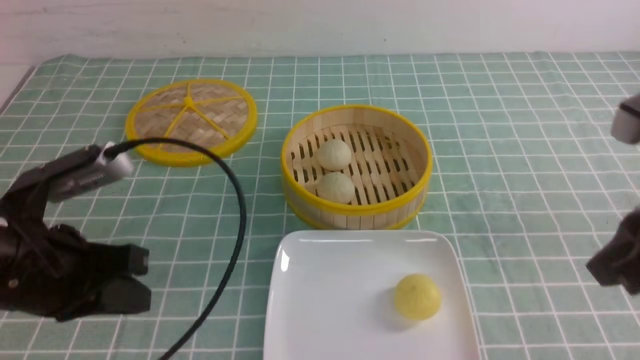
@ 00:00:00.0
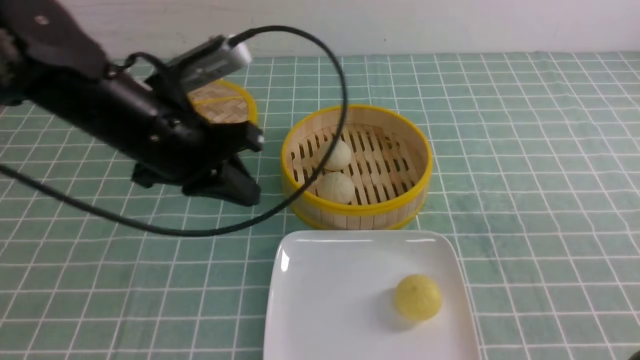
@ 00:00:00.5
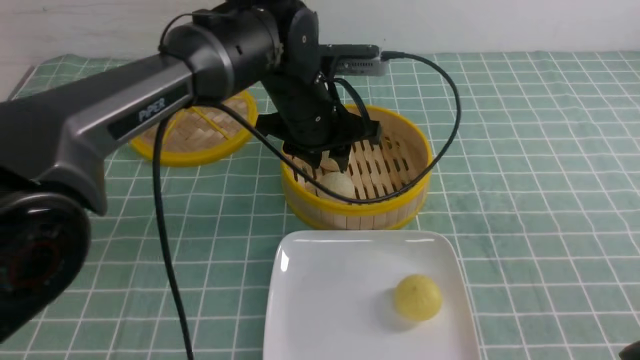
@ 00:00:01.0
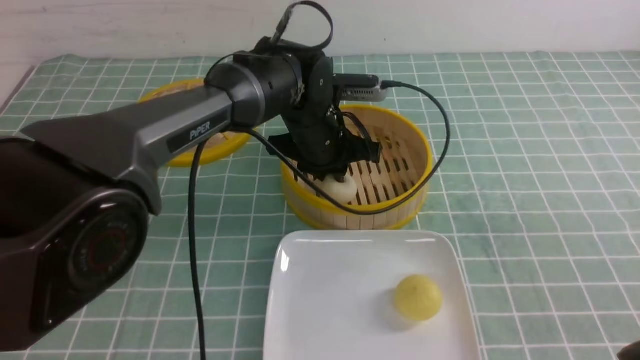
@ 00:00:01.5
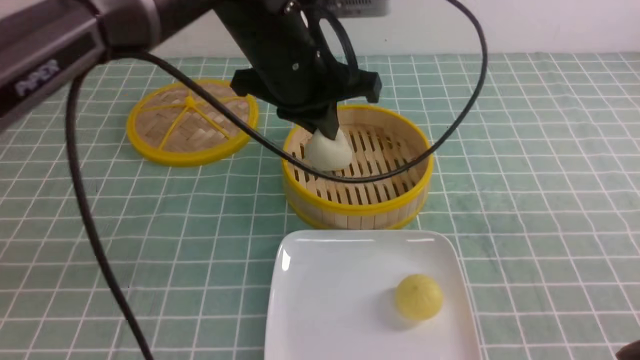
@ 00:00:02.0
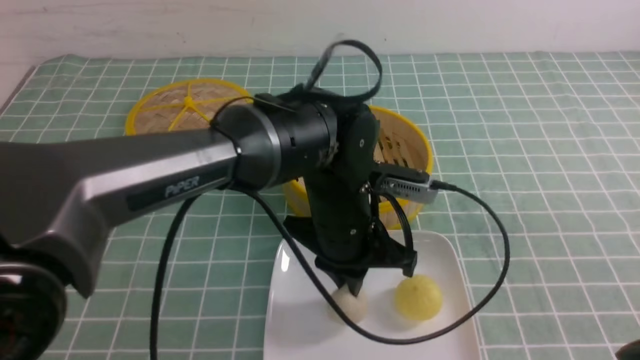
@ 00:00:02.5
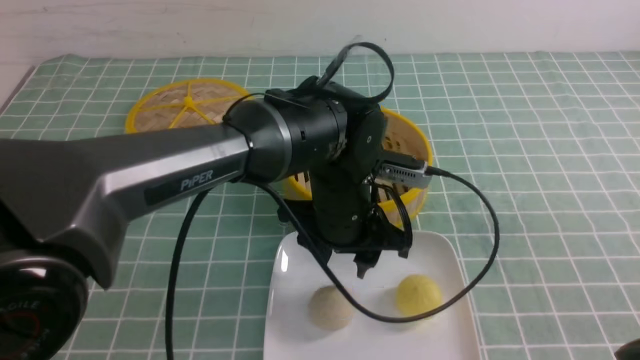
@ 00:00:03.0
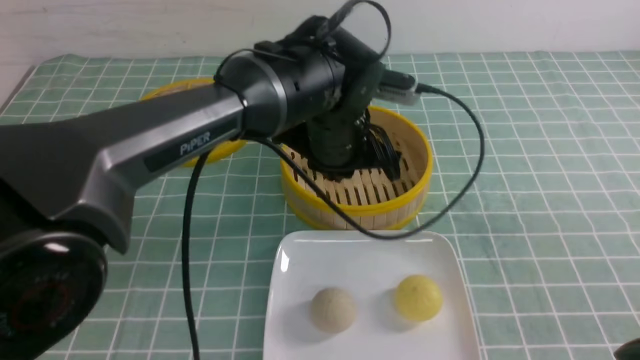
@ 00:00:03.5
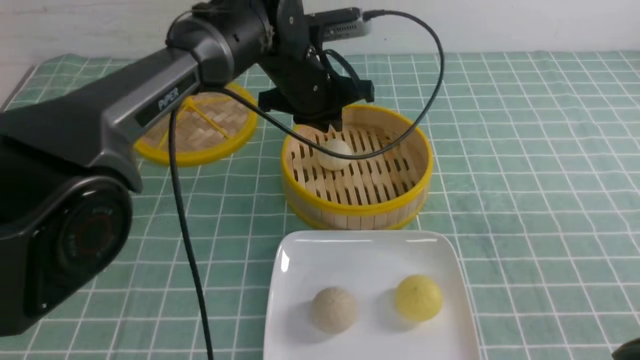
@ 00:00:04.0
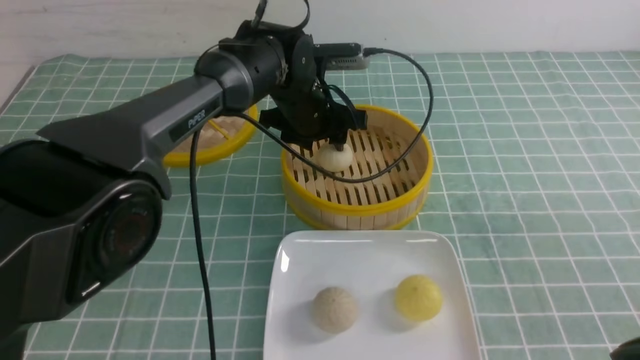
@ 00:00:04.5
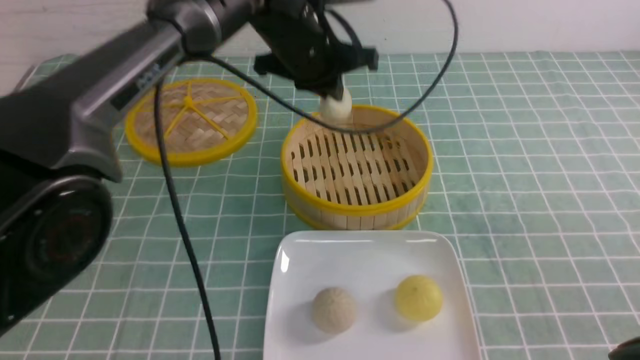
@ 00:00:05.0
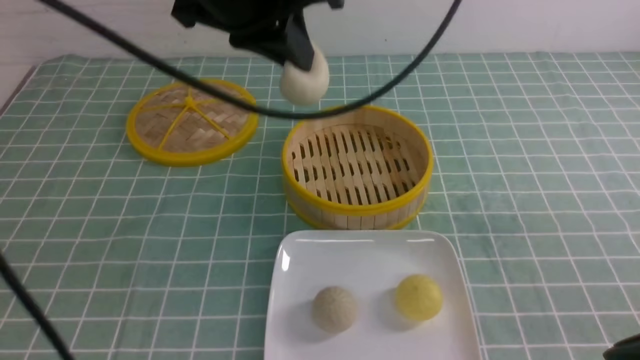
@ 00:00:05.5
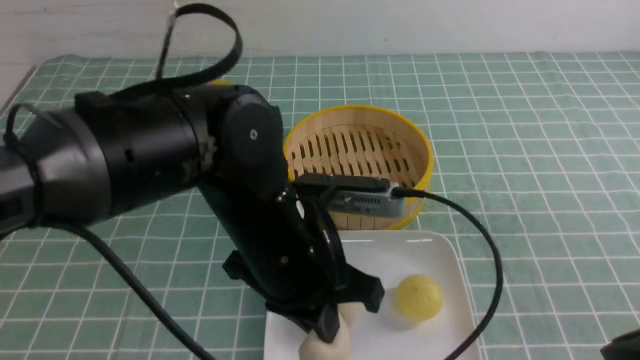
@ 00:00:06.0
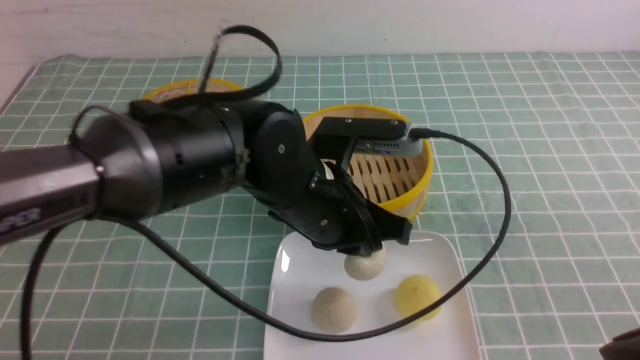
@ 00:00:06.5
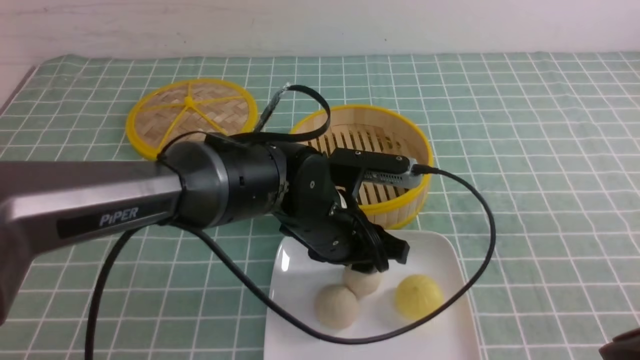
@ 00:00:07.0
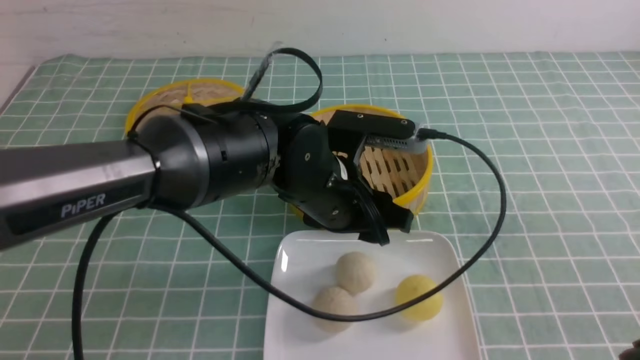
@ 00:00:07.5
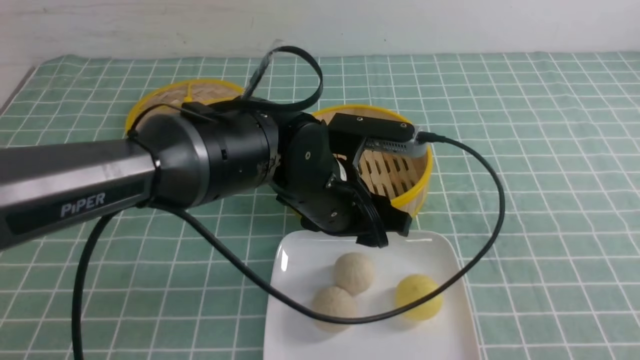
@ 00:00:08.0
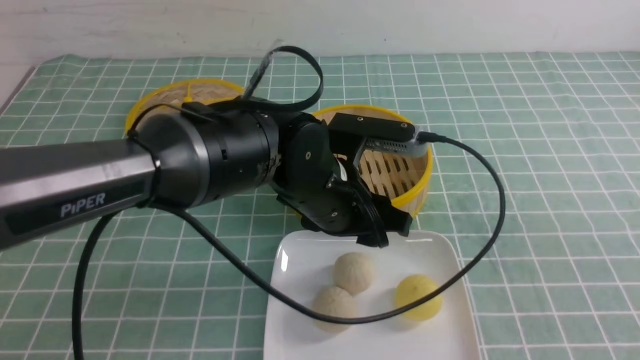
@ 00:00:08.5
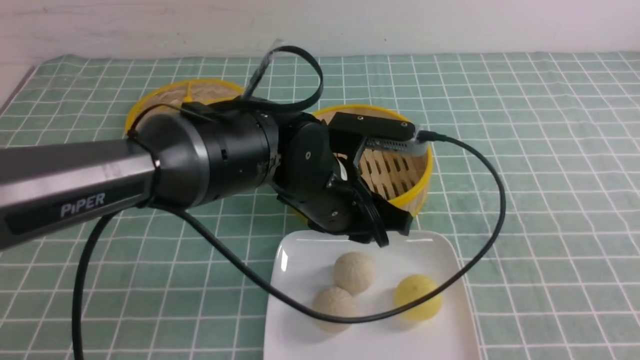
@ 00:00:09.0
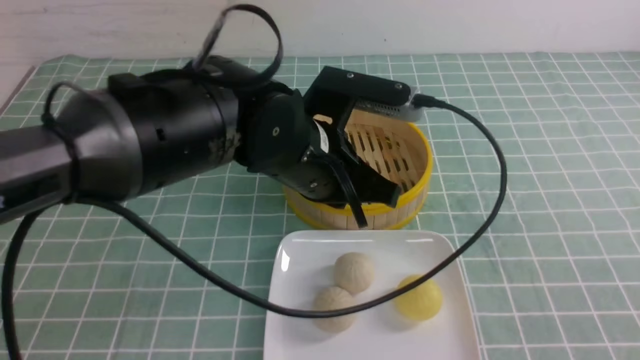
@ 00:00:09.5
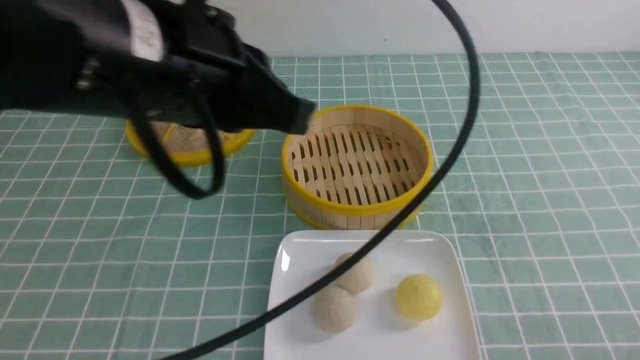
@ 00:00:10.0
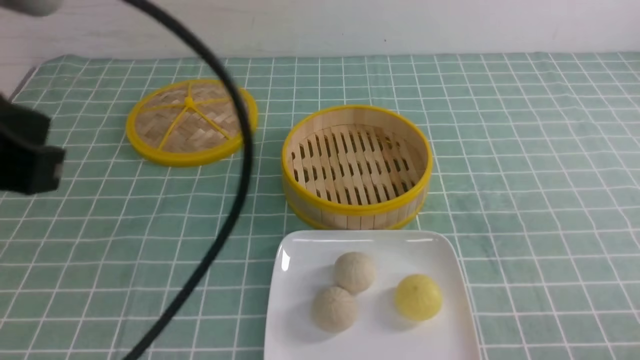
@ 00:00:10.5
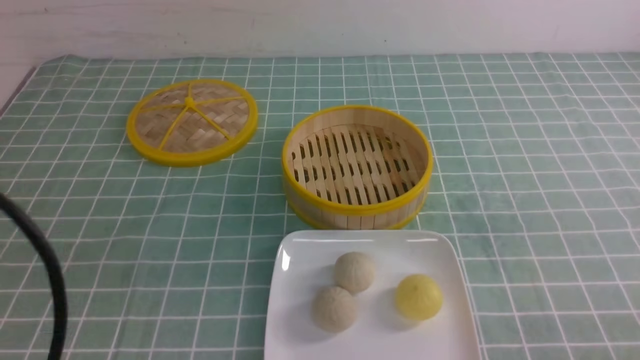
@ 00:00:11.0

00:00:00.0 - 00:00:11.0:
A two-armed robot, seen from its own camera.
Step, 00:00:00.0 - 00:00:01.5: use the left arm to grab the steamed stuffed bun that is closest to it.
Step, 00:00:02.0 - 00:00:02.5: use the left arm to put the steamed stuffed bun into the plate.
Step, 00:00:03.0 - 00:00:04.5: use the left arm to grab the steamed stuffed bun that is closest to it.
Step, 00:00:05.0 - 00:00:07.0: use the left arm to put the steamed stuffed bun into the plate.
00:00:00.0 - 00:00:02.0: The right gripper heads downward and backward, covering some 10 cm. The left gripper heads to the right and forward, covering about 25 cm, and opens, then closes once more.
00:00:02.0 - 00:00:03.5: The left gripper shifts about 5 cm downward, and opens, then closes once more.
00:00:03.5 - 00:00:05.5: The left gripper moves upward and to the left, approximately 15 cm, and opens, then closes again.
00:00:05.5 - 00:00:07.5: The left gripper heads downward and to the right, covering roughly 20 cm, and opens up.
00:00:07.5 - 00:00:09.0: The right gripper closes up; the left gripper closes its fingers.
00:00:09.0 - 00:00:11.0: The left gripper moves to the left, backward and upward, roughly 35 cm, and closes its fingers. The right gripper is displaced downward by approximately 10 cm.

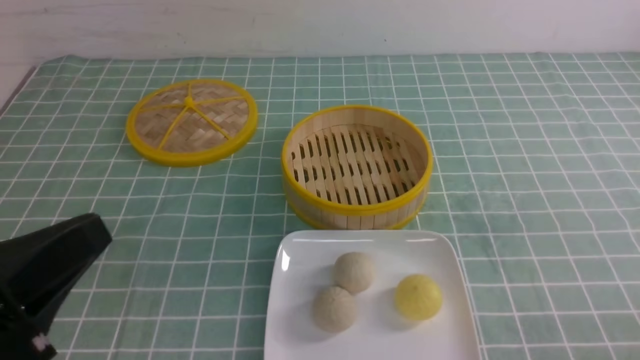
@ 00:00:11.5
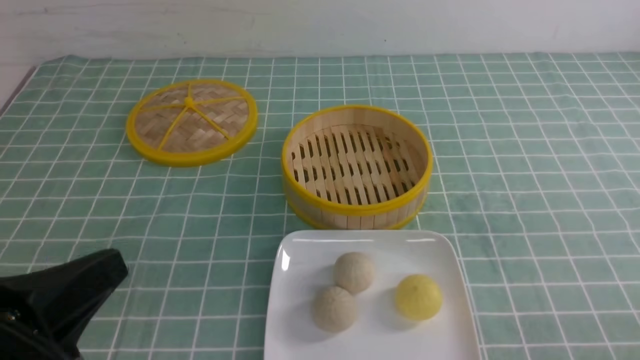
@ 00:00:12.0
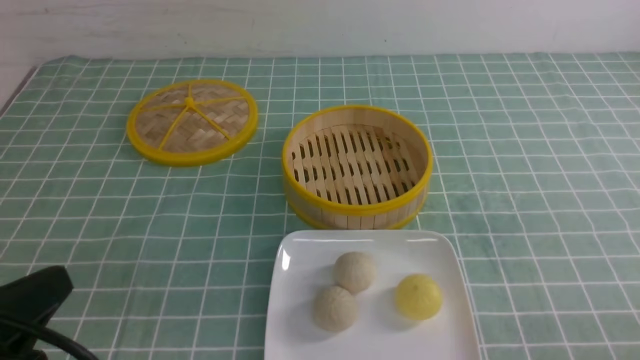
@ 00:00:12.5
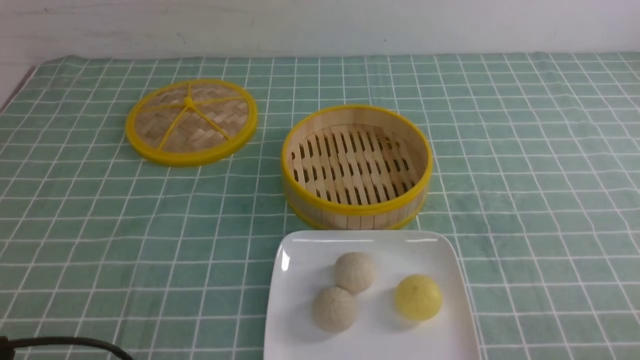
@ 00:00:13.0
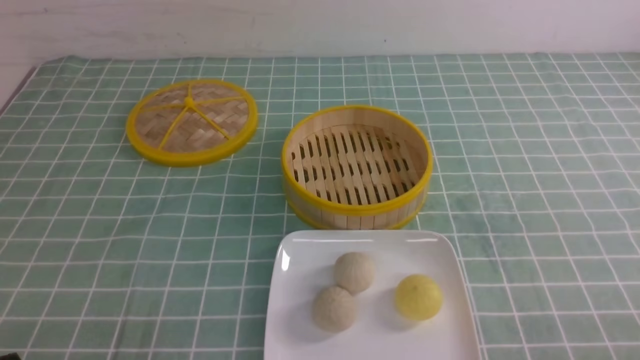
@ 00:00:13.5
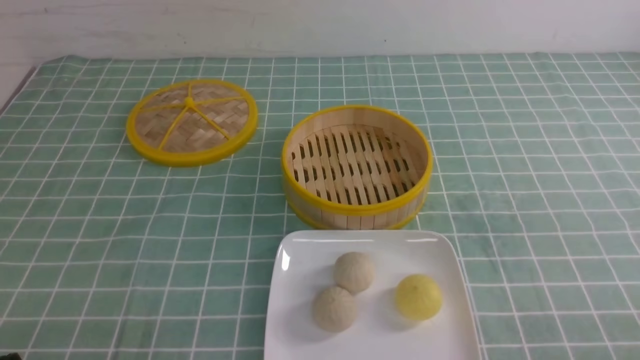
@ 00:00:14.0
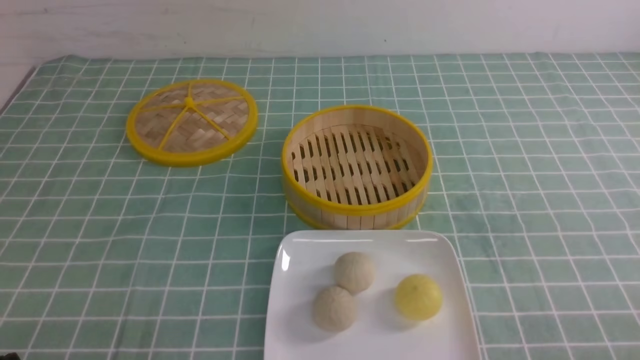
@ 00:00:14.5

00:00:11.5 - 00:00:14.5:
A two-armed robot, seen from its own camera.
00:00:11.5 - 00:00:13.0: The left gripper moves downward, roughly 10 cm.
